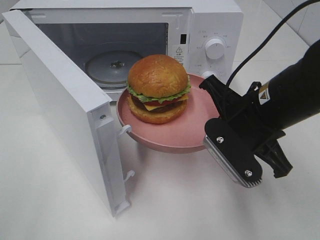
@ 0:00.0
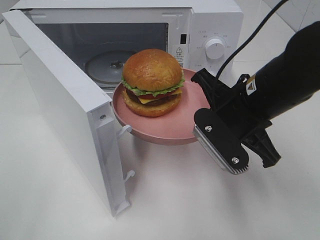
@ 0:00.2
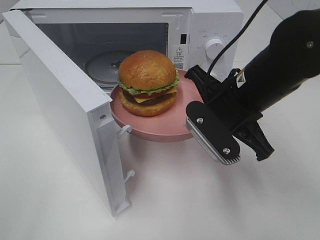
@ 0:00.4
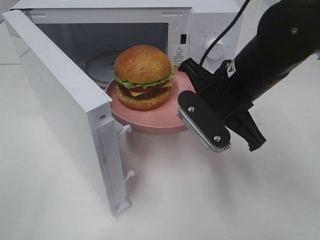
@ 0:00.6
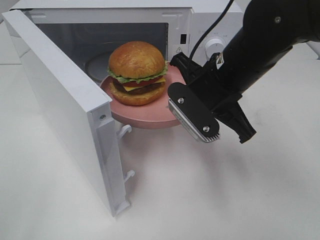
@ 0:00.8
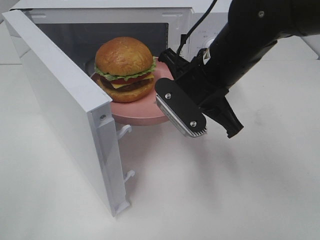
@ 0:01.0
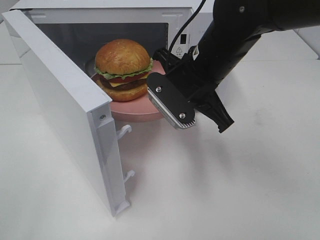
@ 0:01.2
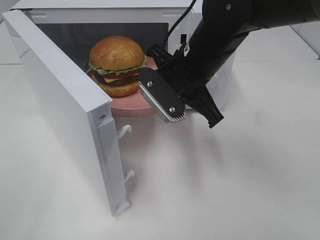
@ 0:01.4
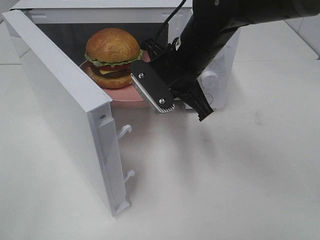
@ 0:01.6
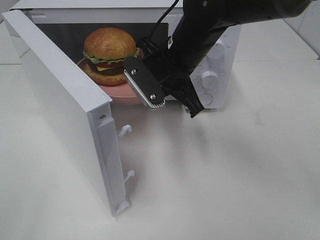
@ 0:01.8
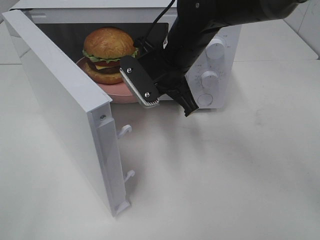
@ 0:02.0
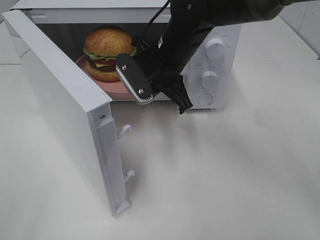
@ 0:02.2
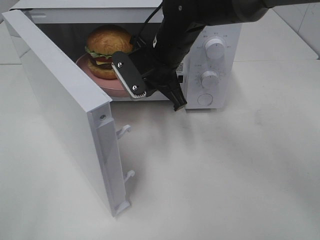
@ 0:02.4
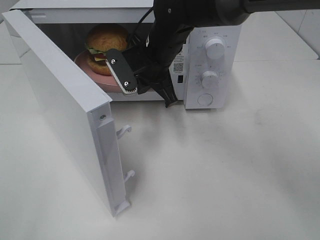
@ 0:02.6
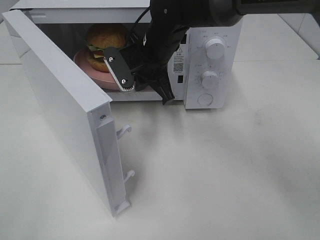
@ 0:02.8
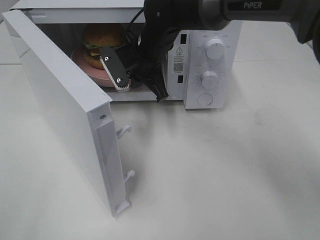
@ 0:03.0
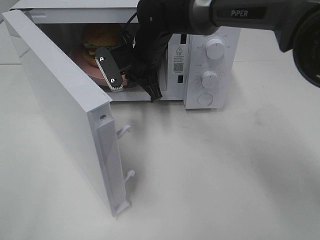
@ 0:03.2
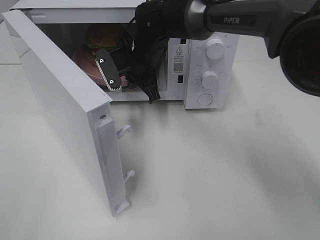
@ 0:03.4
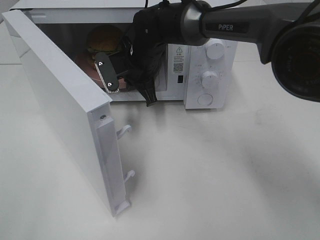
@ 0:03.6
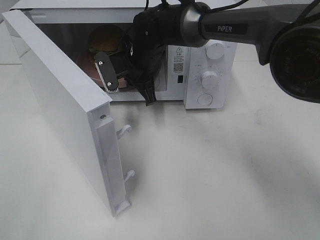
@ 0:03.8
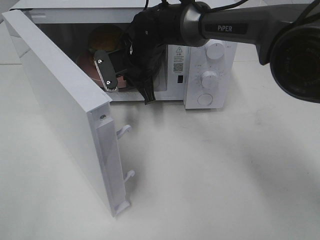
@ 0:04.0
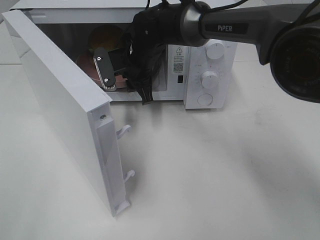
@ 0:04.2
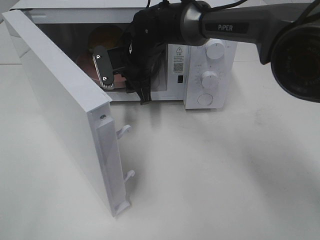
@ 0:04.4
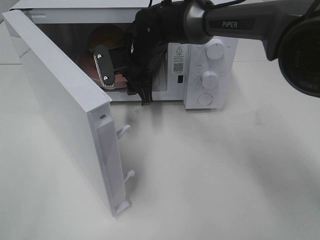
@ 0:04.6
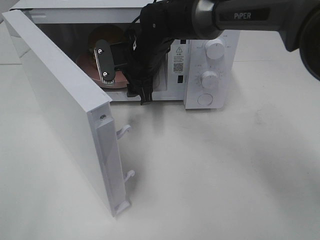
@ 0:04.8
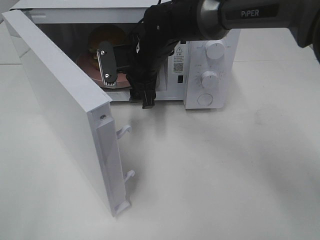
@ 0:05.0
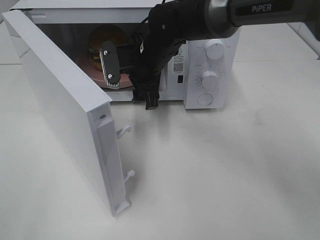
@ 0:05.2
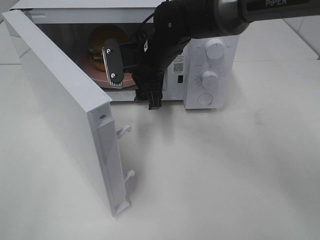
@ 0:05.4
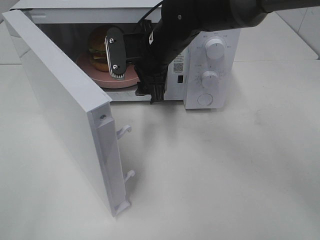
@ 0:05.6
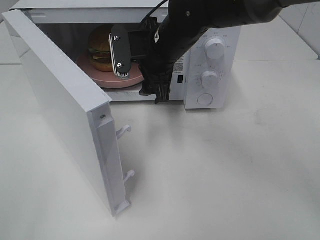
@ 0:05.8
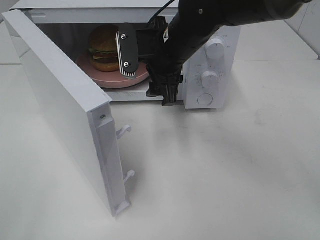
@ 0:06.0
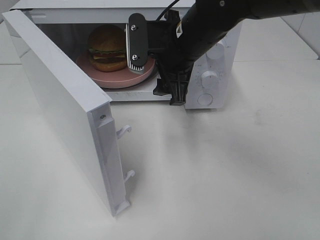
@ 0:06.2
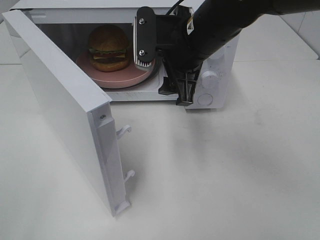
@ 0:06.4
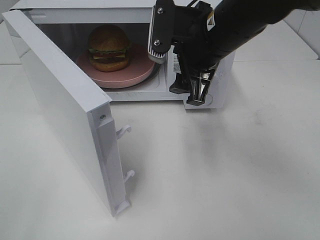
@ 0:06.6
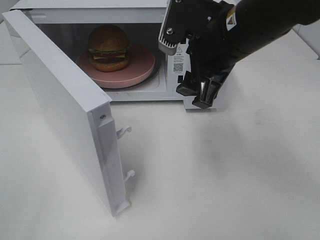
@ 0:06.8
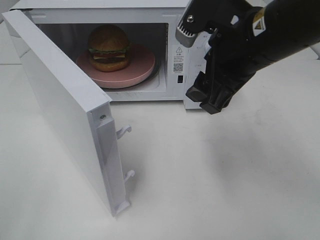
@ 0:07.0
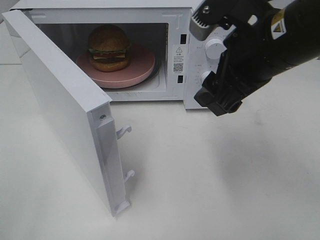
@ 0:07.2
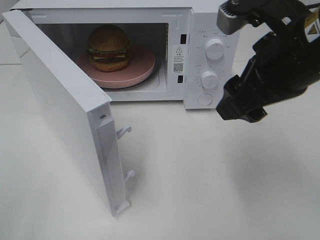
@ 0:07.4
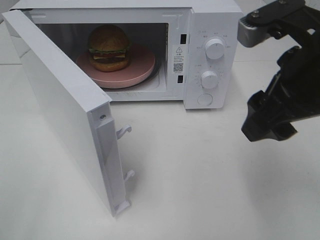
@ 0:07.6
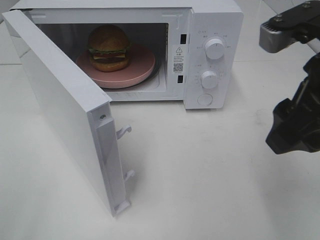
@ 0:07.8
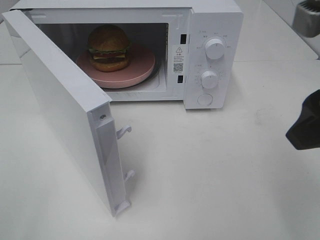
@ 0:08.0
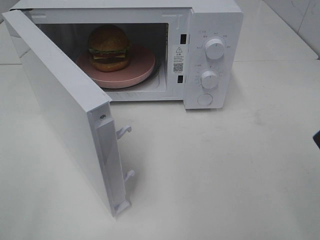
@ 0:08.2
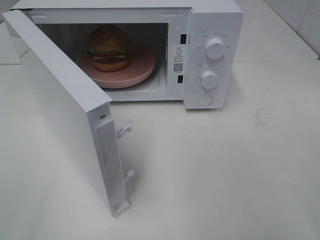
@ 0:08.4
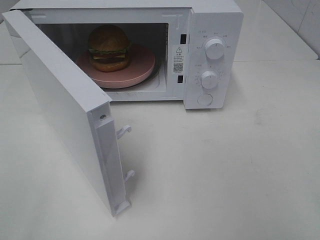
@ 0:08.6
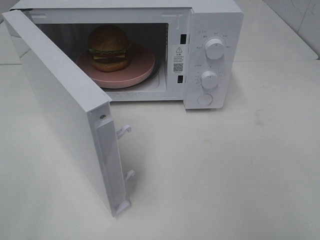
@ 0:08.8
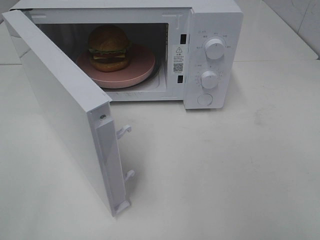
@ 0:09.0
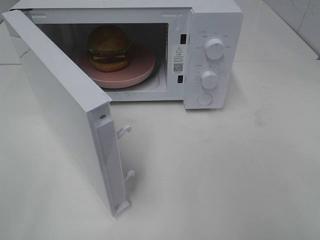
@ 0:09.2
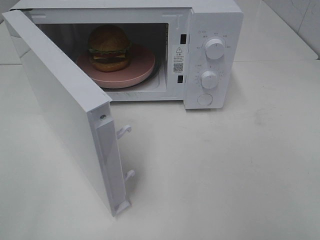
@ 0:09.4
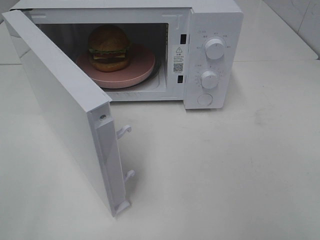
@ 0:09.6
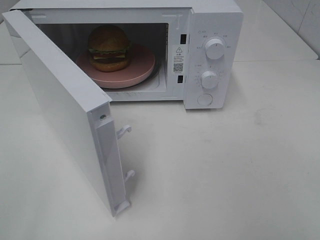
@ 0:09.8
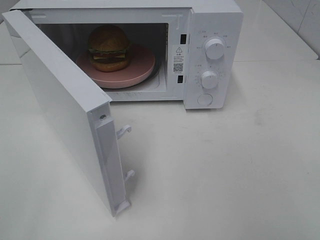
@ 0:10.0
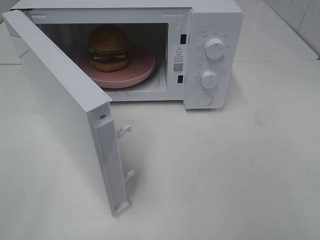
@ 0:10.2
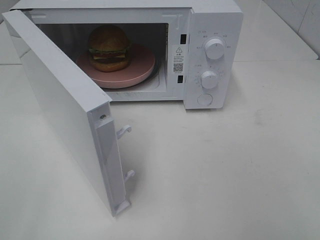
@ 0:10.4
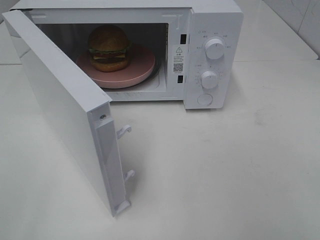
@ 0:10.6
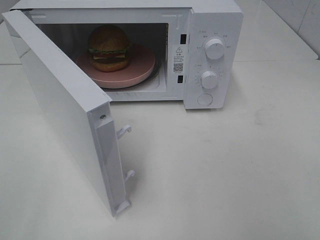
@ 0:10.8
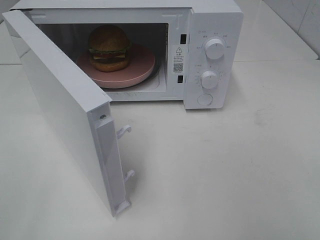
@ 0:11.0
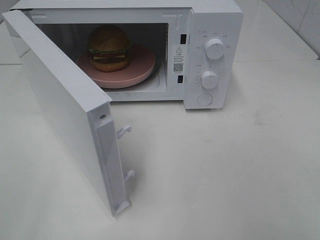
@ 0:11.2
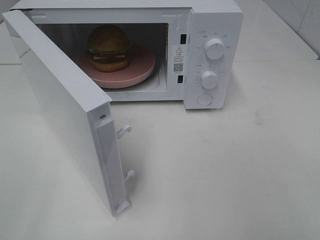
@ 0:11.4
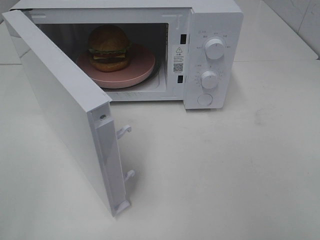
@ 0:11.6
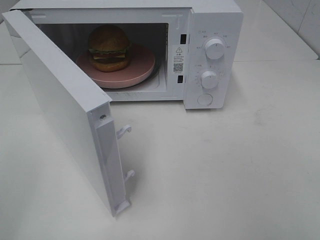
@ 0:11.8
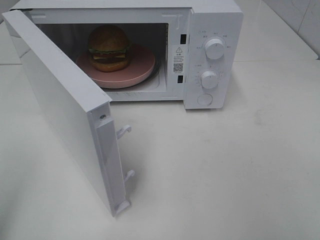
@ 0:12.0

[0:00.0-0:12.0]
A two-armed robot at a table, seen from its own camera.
Task of the whole recording: Heat the burger.
Step, 0:00.0 to 0:04.2: Right hand: place the plate in the microwave.
0:00.0 to 0:01.6: The right gripper shifts some 15 cm forward and to the left.
0:01.6 to 0:03.0: The right gripper is displaced forward and to the left by approximately 10 cm.
0:03.0 to 0:04.4: The right gripper opens its fingers.
0:04.4 to 0:06.0: The right gripper goes about 10 cm backward, upward and to the right.
0:06.0 to 0:07.6: The right gripper shifts roughly 20 cm backward, to the right and upward.
0:07.6 to 0:09.0: The right gripper is displaced backward and to the right by some 20 cm.

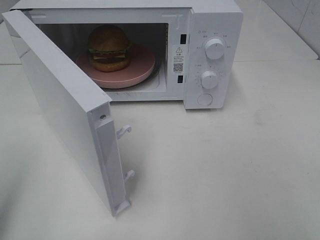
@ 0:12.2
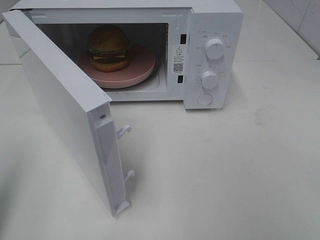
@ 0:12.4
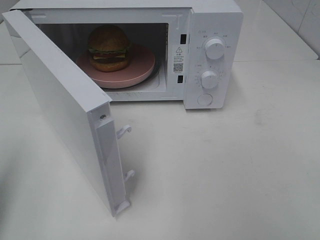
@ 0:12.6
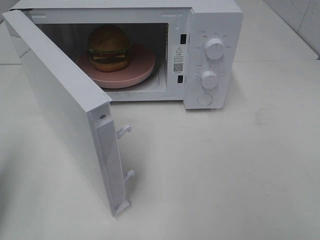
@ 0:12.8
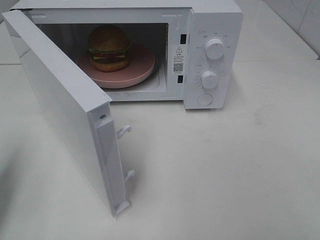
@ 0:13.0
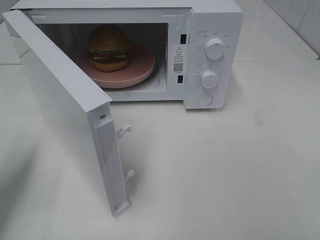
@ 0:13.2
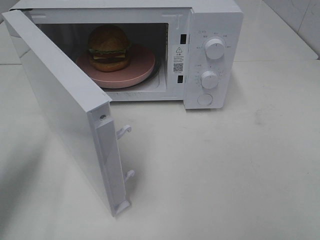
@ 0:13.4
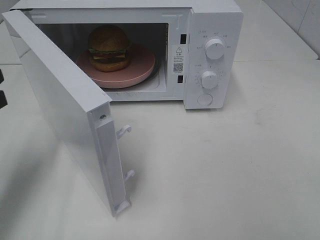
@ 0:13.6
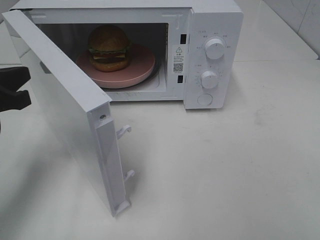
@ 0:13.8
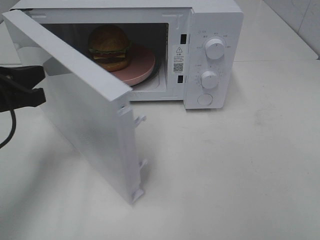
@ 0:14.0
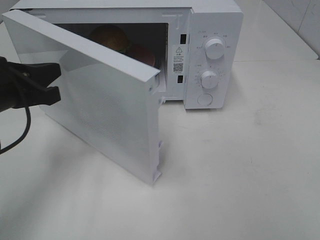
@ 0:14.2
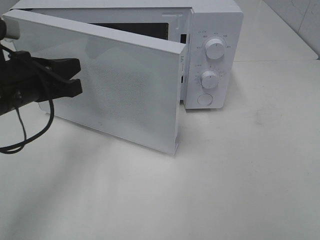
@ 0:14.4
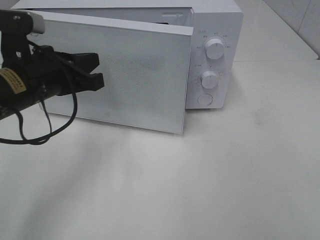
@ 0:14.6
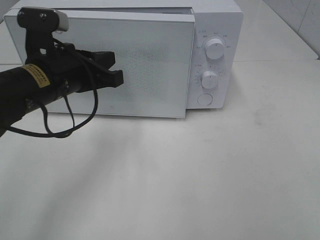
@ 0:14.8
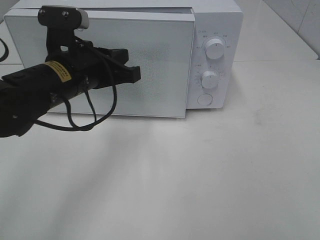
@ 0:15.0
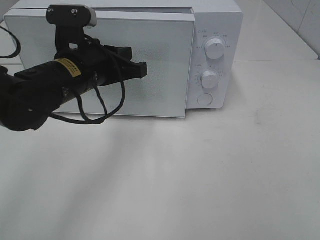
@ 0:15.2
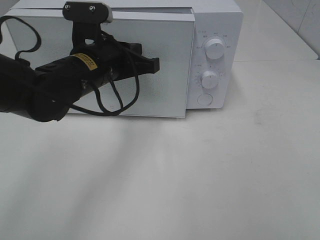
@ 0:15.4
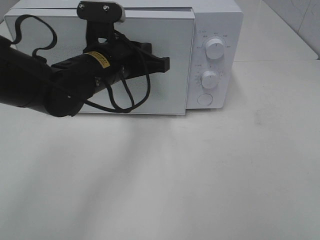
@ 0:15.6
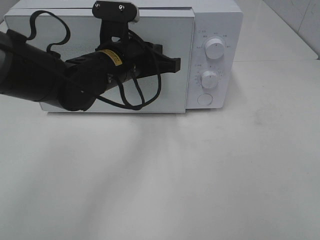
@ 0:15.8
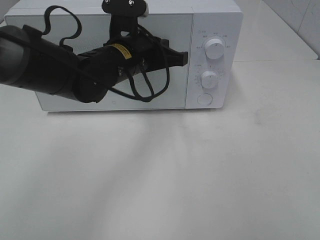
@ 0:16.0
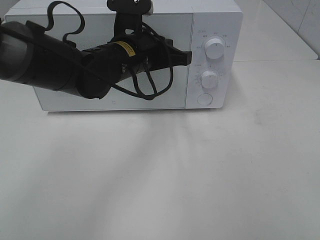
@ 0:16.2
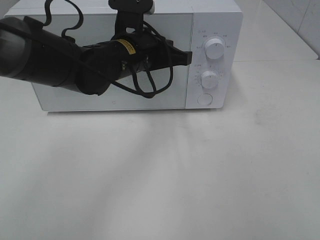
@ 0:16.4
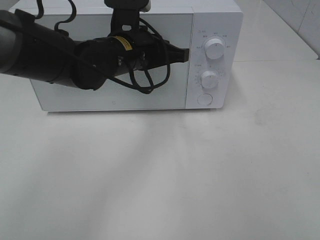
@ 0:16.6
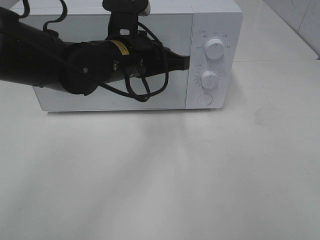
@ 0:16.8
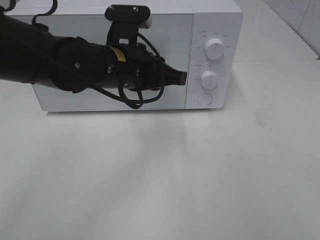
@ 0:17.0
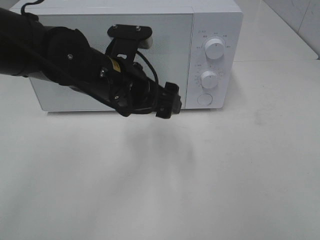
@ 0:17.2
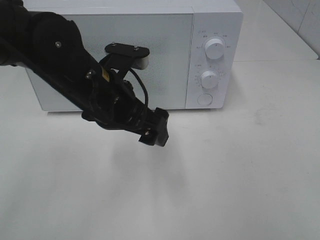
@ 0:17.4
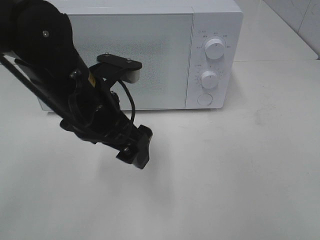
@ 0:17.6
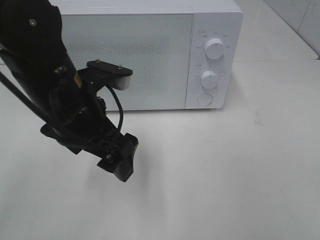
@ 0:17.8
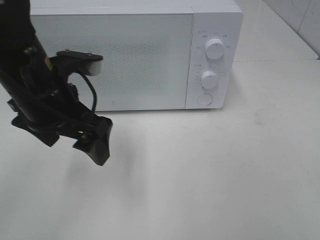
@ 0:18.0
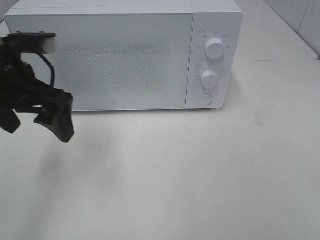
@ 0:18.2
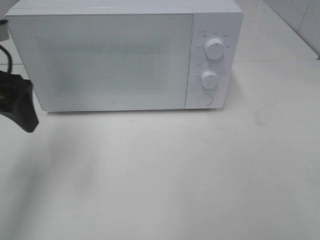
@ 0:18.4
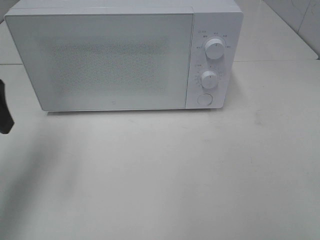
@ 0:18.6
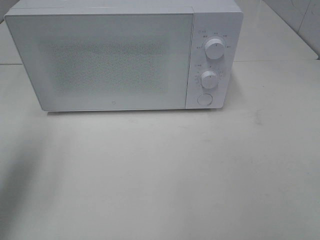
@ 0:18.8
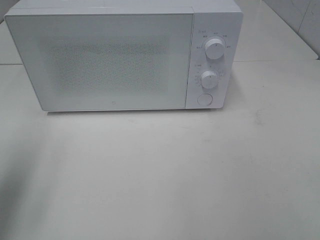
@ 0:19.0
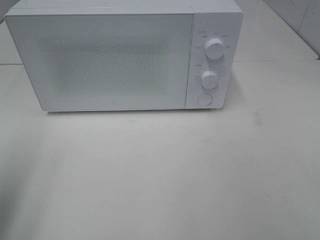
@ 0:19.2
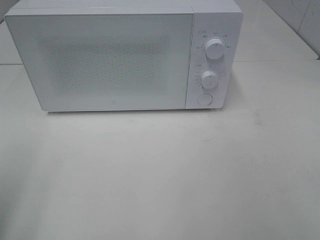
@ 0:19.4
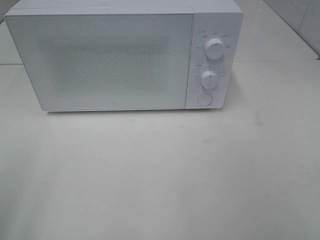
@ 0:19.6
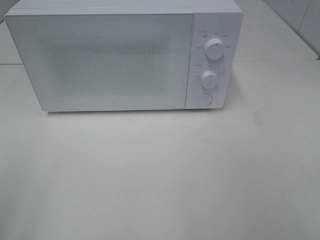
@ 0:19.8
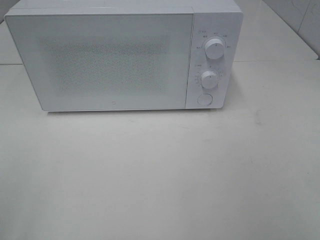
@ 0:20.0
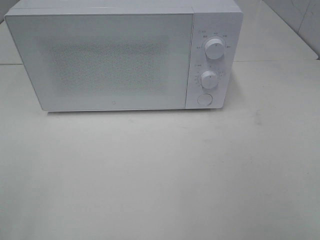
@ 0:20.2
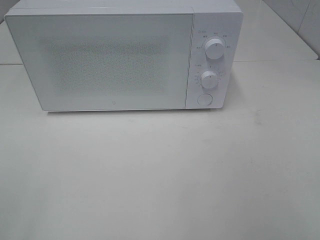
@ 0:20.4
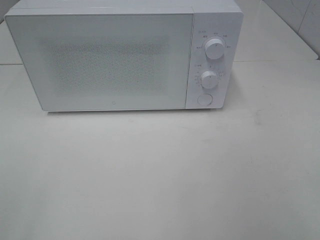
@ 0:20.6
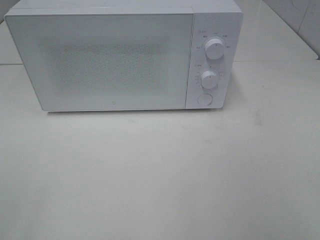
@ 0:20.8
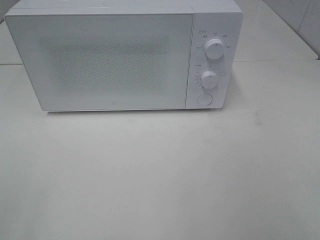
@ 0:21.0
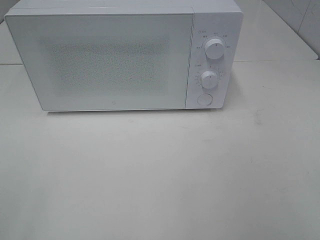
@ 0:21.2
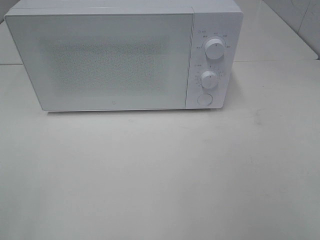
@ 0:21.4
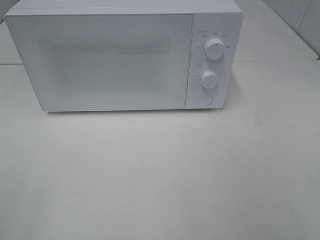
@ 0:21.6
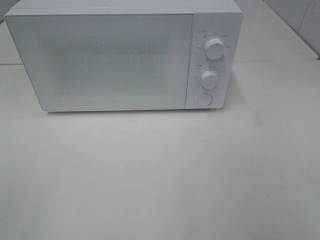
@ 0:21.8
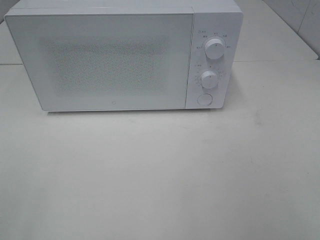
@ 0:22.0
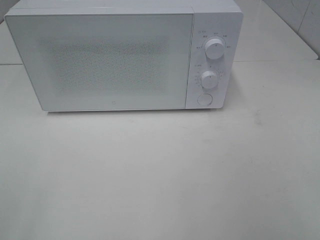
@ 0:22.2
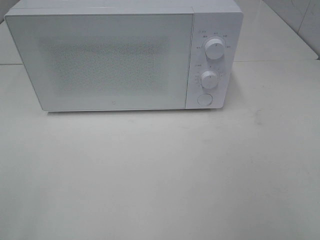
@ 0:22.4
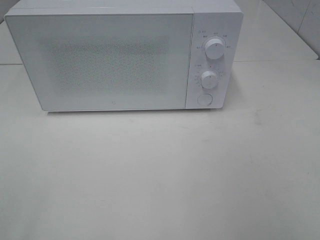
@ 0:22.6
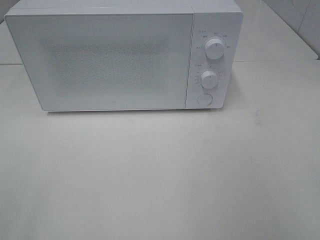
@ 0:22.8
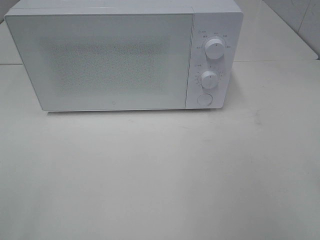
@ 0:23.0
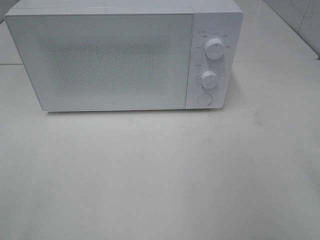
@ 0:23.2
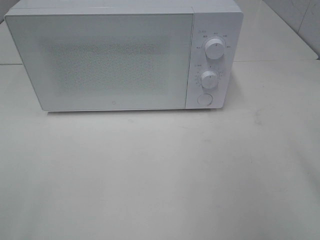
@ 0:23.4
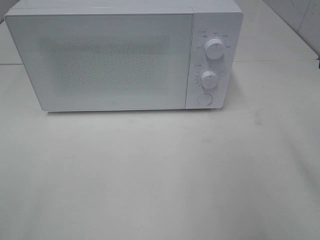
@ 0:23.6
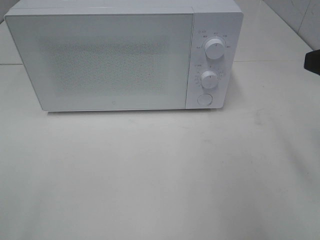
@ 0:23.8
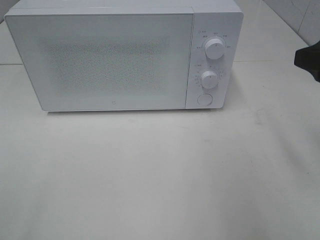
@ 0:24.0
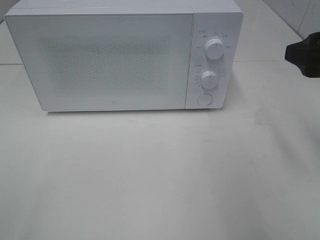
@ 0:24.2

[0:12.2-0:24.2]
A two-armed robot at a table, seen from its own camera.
Task of the whole recording: Heat the burger.
Step, 0:12.2 to 0:16.6: Left hand: close the microwave door.
0:12.2 to 0:13.8: The left gripper is displaced forward and downward by some 15 cm.
0:13.8 to 0:15.2: The left gripper shifts roughly 15 cm to the right and forward.
0:15.2 to 0:16.6: The left gripper moves to the right, approximately 5 cm.
0:16.6 to 0:18.2: The left gripper moves to the left and backward, about 15 cm, and opens its fingers.
0:18.2 to 0:19.8: The left gripper travels backward and to the left by about 25 cm.
0:22.6 to 0:24.2: The right gripper travels forward by about 20 cm.
